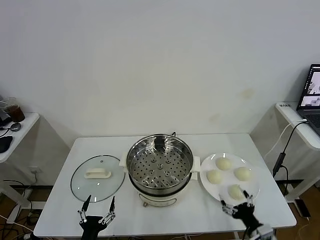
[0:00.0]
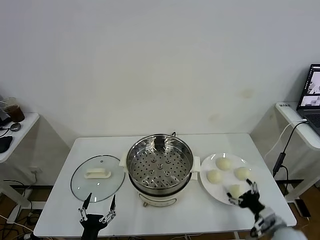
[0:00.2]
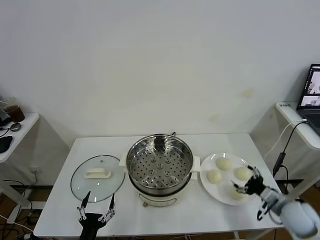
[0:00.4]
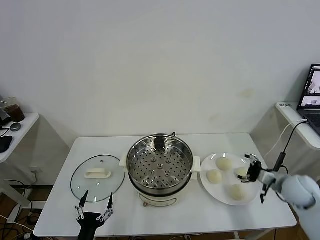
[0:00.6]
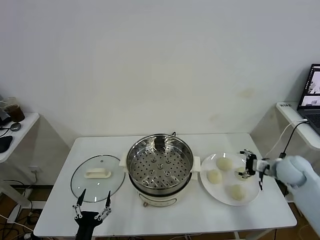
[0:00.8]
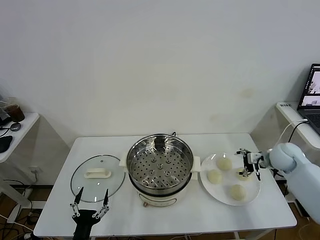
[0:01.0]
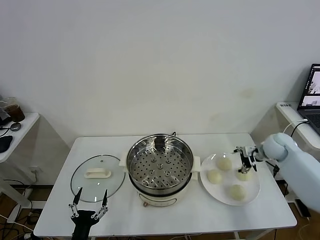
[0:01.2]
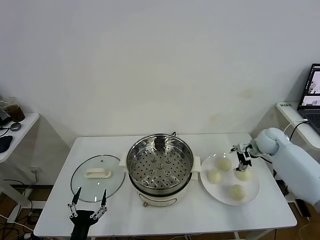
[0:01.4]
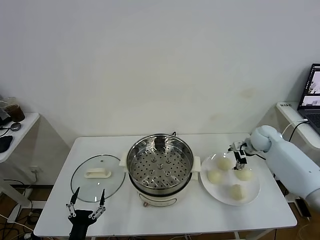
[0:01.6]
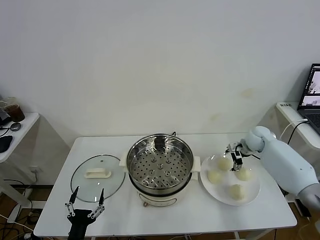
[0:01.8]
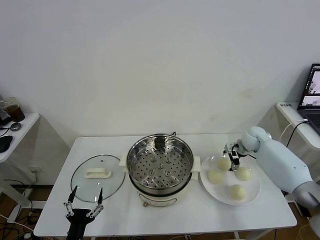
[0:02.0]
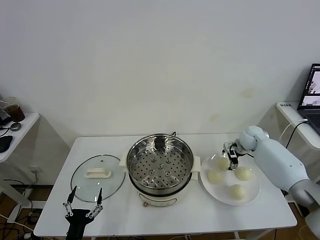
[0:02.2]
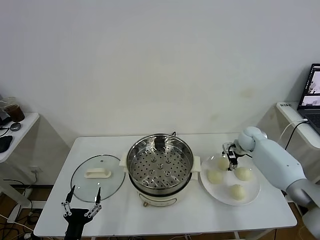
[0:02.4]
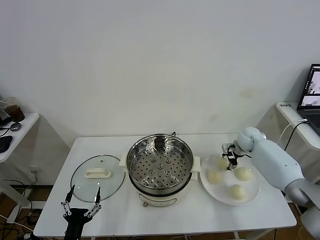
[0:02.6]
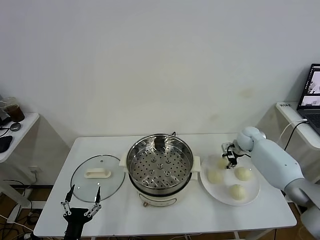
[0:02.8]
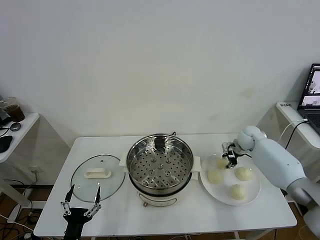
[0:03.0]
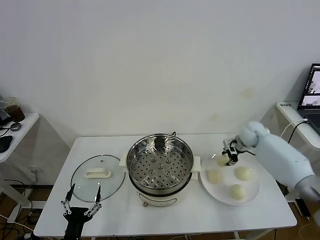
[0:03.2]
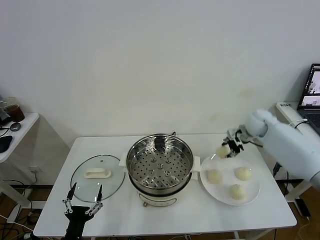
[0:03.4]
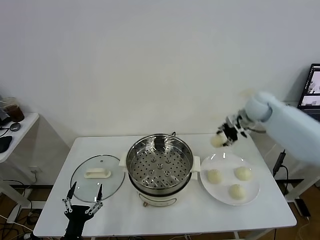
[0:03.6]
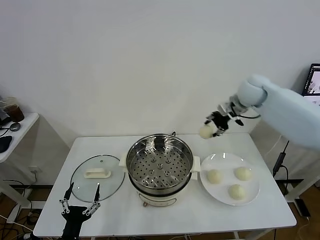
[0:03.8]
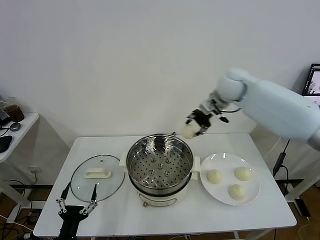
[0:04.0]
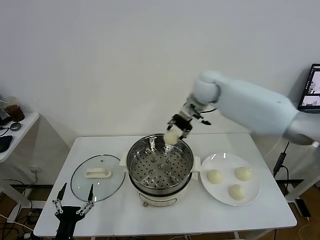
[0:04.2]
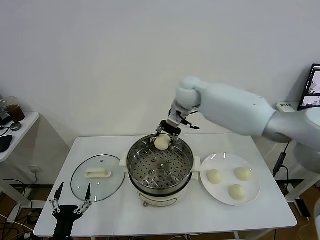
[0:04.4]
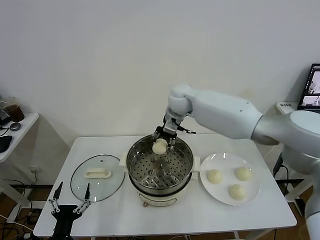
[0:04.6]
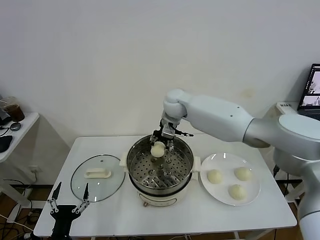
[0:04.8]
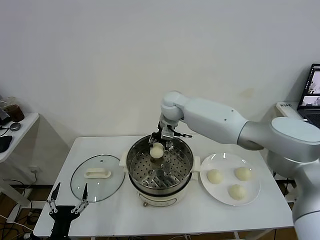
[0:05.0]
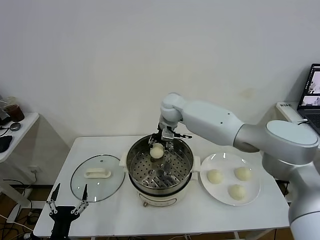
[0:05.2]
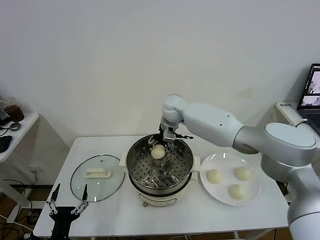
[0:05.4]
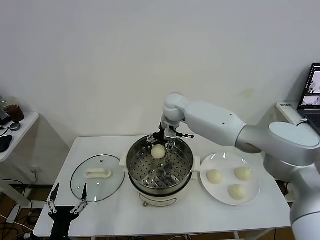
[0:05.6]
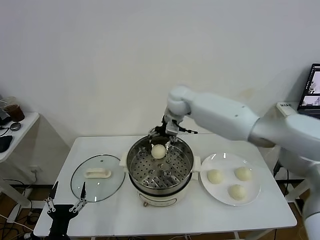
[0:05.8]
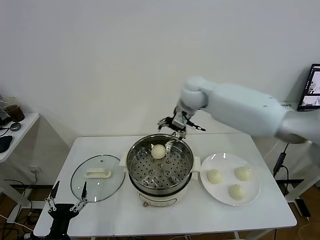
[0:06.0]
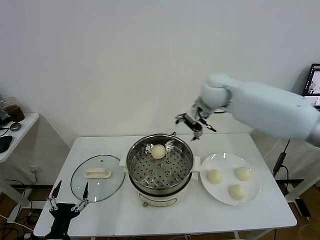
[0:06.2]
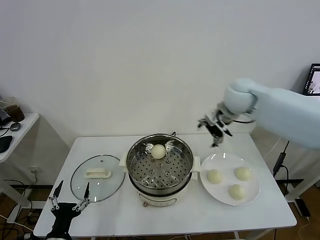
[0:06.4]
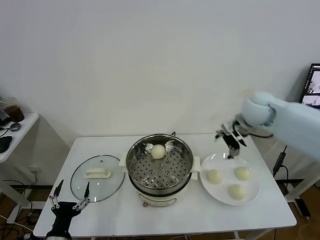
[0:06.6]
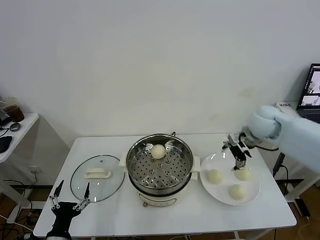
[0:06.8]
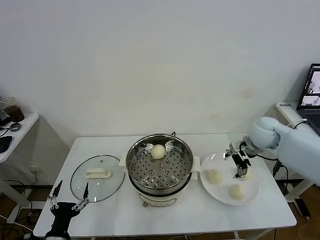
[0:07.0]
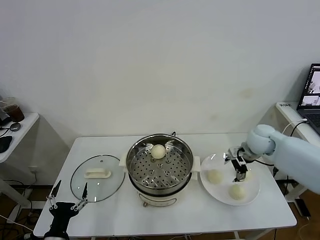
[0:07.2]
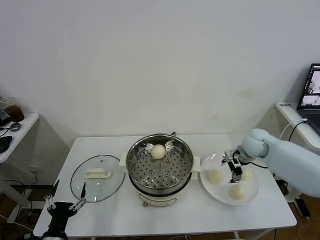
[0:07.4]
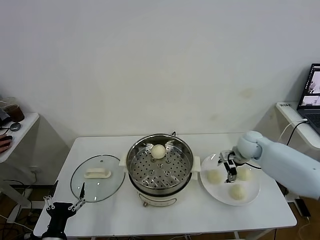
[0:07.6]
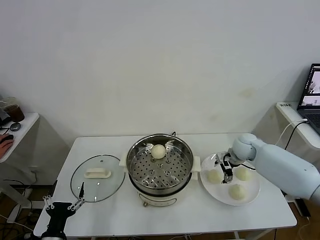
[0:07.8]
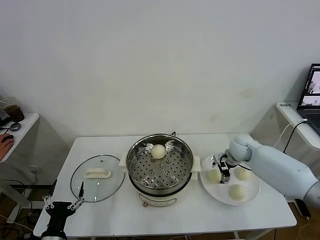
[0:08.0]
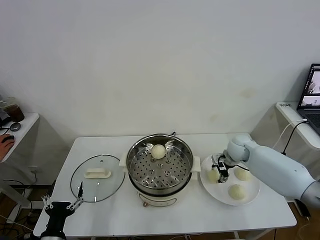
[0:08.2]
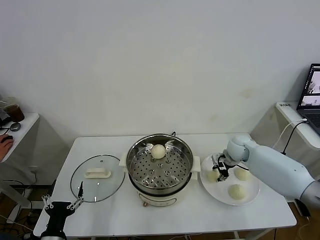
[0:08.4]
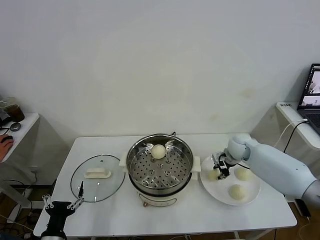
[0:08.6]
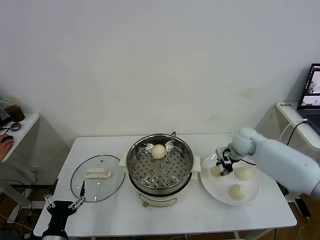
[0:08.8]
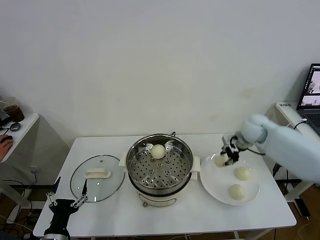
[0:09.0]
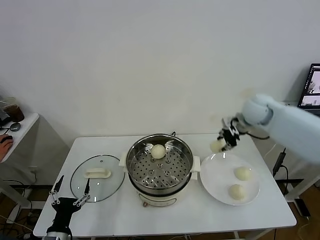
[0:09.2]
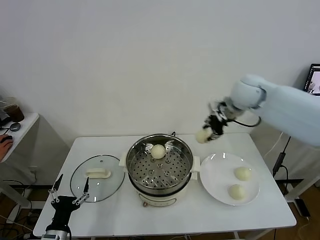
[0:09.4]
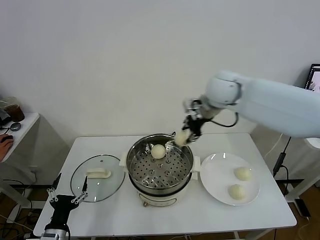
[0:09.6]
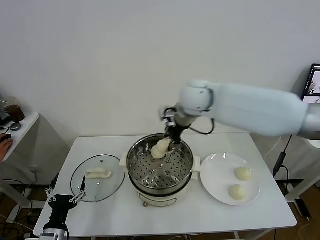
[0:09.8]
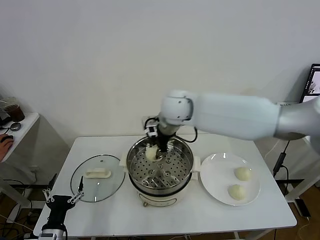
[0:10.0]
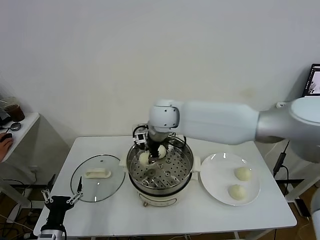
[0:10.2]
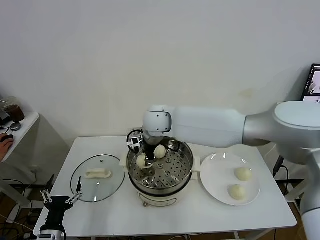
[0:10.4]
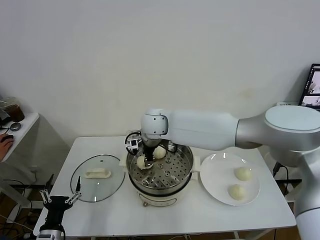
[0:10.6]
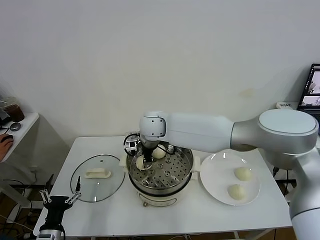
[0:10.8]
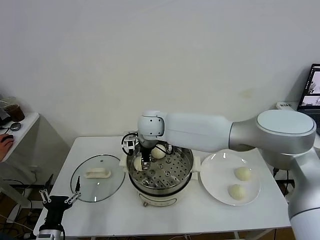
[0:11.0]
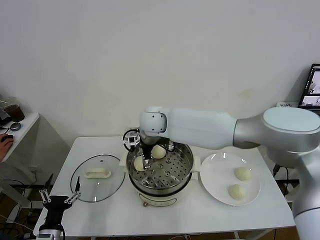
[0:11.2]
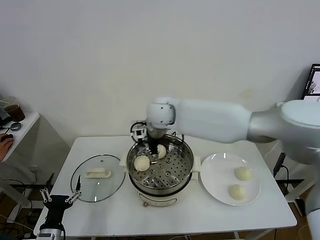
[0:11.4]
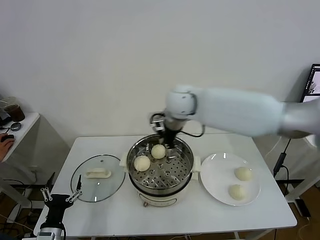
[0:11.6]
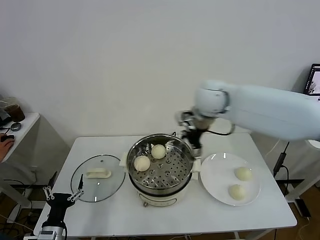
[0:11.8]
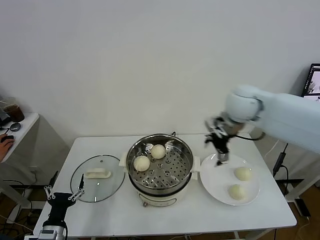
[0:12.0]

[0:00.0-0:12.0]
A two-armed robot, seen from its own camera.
Task of the whole recording: take steamed baozi put them in steamer.
Step, 0.0 to 2.8 s: Grasp the baozi in the plate with right gripper.
Step, 3.0 to 5.6 s: Place the baozi on the steamer with right gripper.
Step, 5.8 to 8.4 s: Grasp the baozi in the plate with right gripper.
Step, 8.6 to 11.2 s: Place the baozi on the steamer with right gripper.
1.6 to 3.0 s: The right gripper closes.
3.0 to 4.4 s: The right gripper shifts approximately 35 cm to the left and upward.
4.4 to 6.0 s: The right gripper shifts some 5 cm to the right, and opens its fingers.
6.0 to 7.6 s: The right gripper goes about 25 cm downward and to the right.
7.6 to 9.0 s: The right gripper moves upward, approximately 10 cm, and closes up.
9.0 to 10.4 s: The right gripper moves to the left, some 35 cm.
10.4 to 12.0 s: The right gripper heads to the right, covering roughly 30 cm, and opens its fingers.

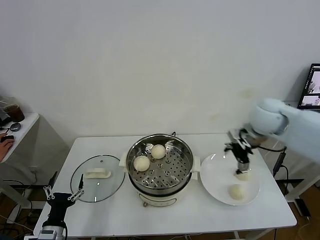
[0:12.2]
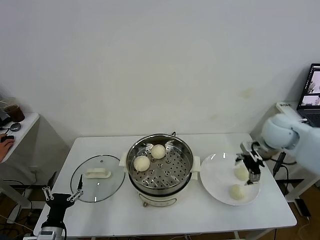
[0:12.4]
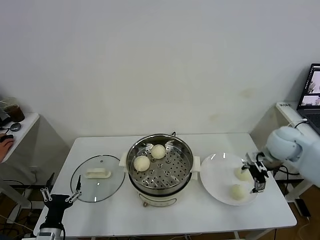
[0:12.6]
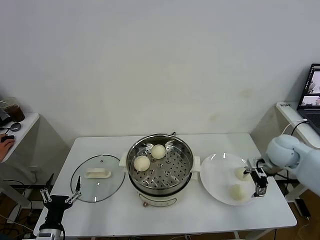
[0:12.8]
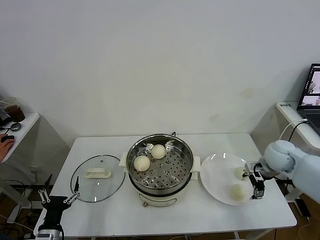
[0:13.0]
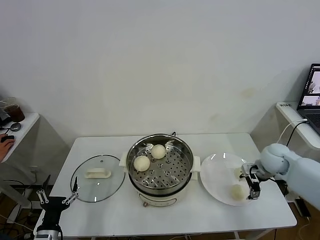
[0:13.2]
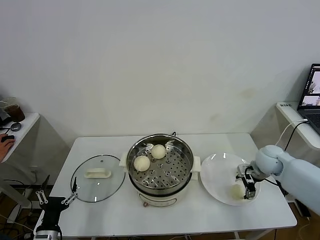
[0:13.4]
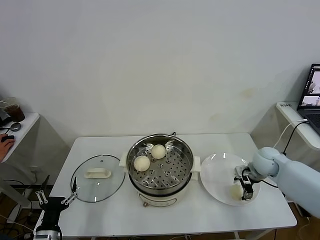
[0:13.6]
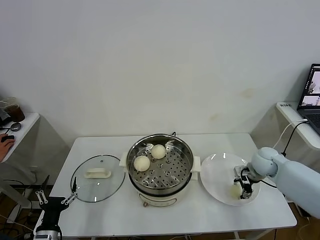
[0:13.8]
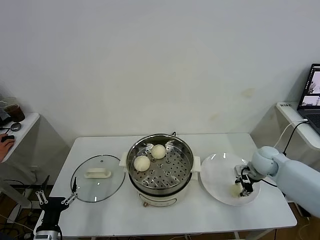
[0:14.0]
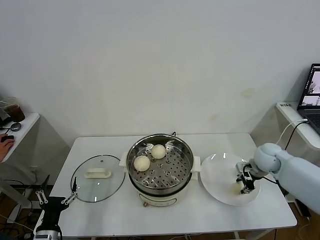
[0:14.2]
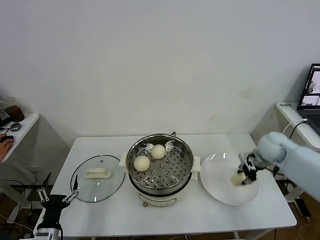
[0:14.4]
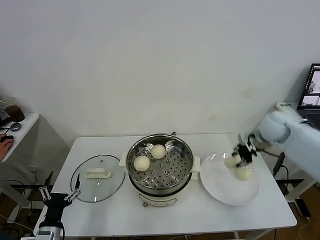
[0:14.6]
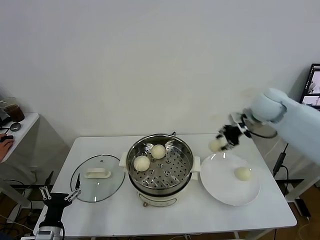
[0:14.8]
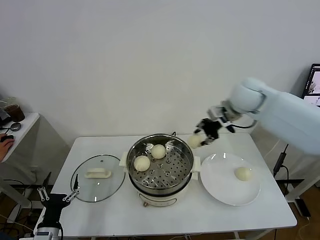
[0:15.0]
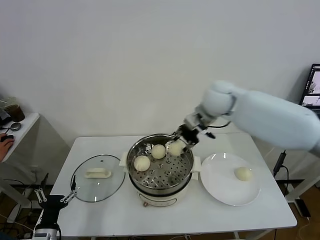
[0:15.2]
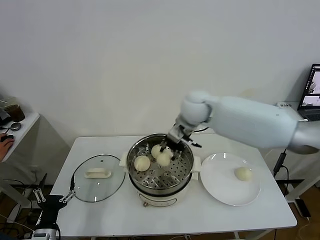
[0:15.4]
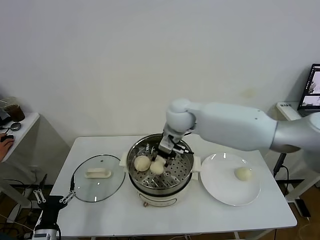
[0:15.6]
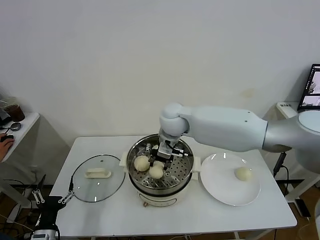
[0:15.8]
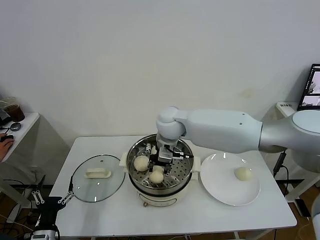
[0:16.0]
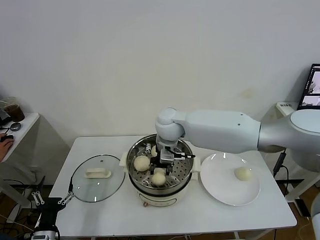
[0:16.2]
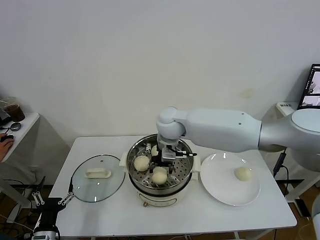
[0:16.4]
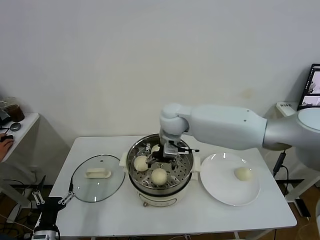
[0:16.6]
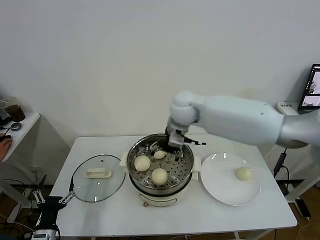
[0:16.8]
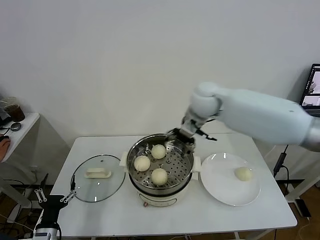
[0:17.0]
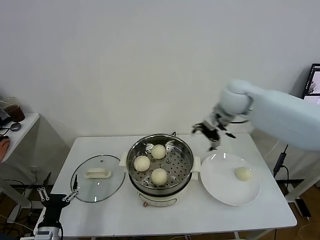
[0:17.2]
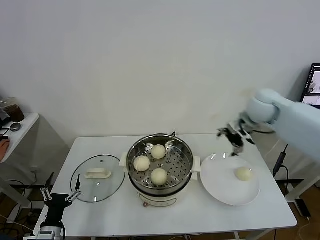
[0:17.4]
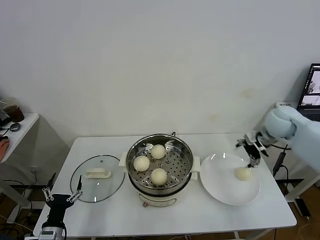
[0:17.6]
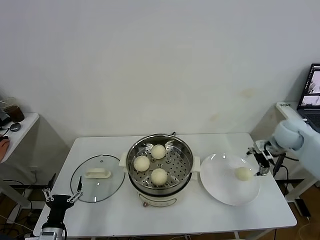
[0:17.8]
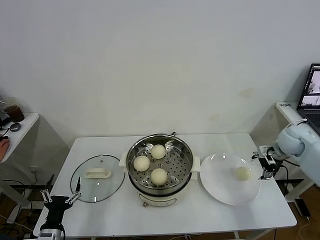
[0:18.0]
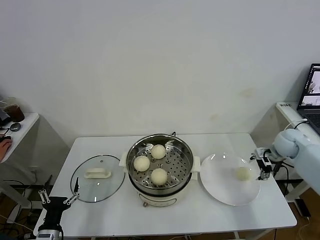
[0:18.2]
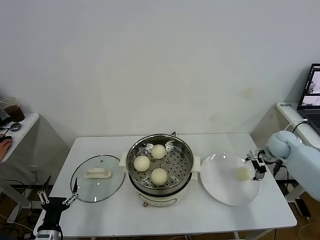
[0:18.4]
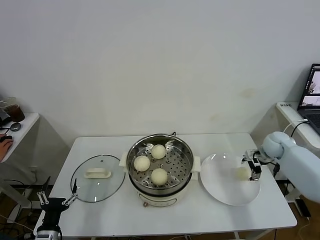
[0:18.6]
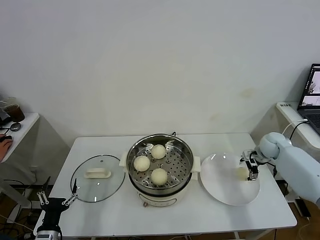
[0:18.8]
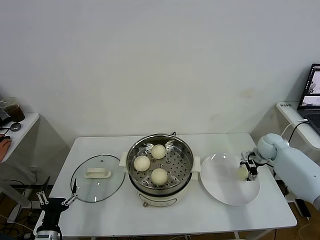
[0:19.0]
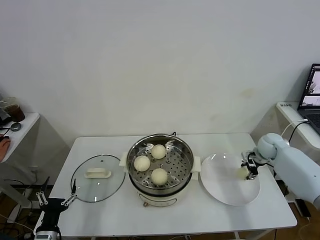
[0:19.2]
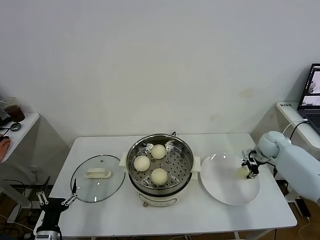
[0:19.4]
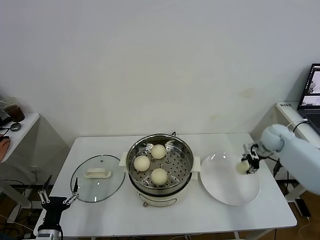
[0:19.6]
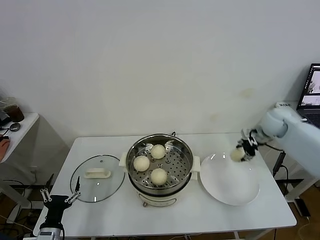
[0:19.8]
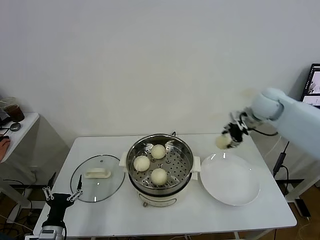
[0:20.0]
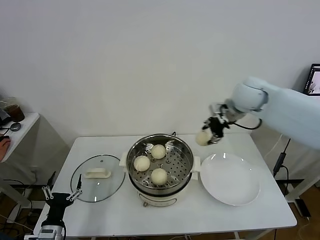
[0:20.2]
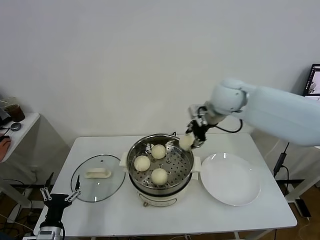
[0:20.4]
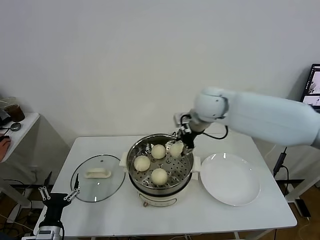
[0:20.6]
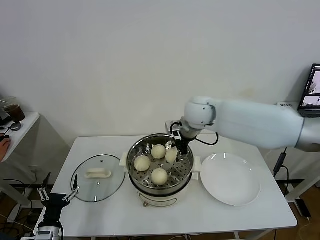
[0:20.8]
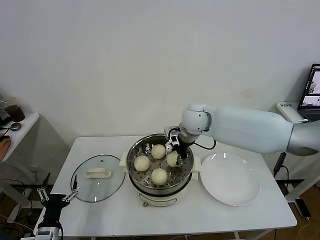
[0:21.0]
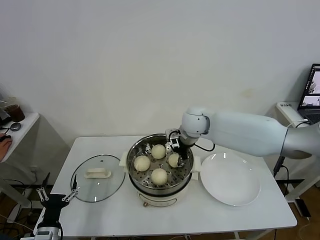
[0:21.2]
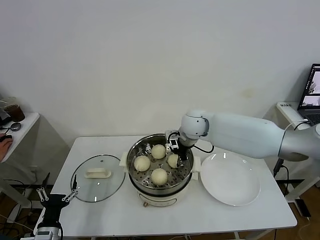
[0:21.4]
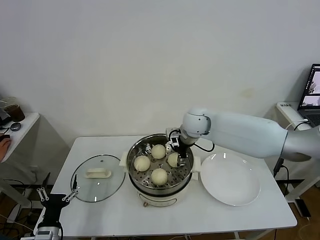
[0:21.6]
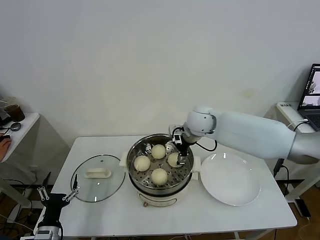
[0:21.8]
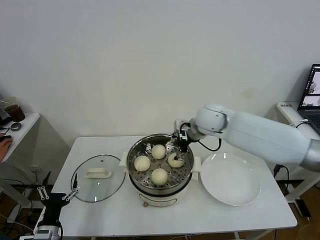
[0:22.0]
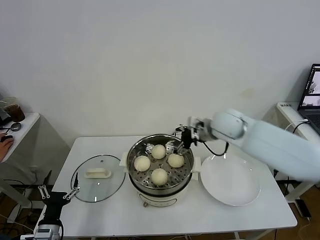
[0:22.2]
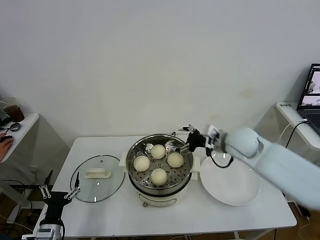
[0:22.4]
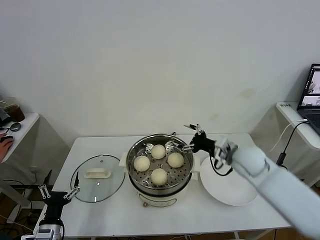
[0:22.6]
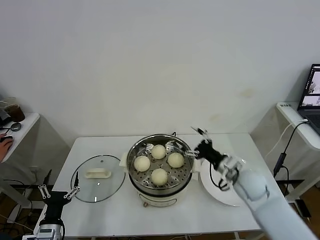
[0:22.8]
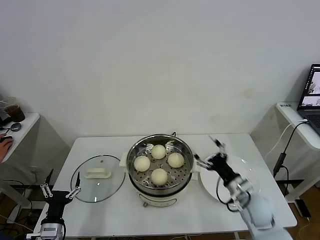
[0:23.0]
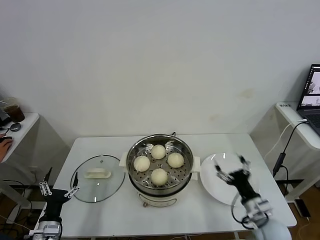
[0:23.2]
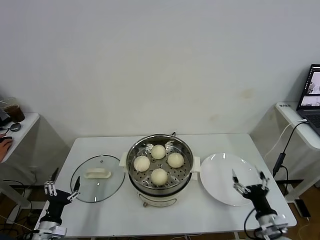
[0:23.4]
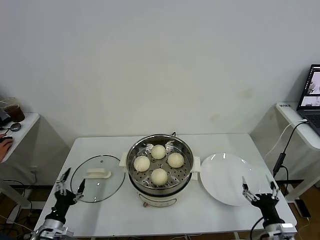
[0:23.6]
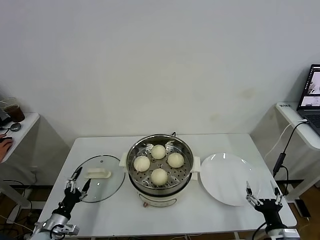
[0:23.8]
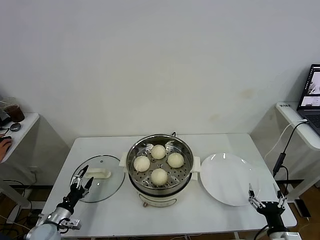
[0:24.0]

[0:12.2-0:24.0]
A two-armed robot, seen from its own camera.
Task of the whole recording: take steamed baozi put them in steamer.
Step, 12.2 to 14.0 s: Grasp the baozi in the plate with right gripper.
Step, 14.2 to 16.6 s: Place the baozi on the steamer with right gripper.
Step, 16.8 to 19.2 s: Grasp the baozi in the plate with right gripper.
Step, 19.4 to 21.6 s: Place the baozi on the steamer with right gripper.
12.2 to 13.6 s: The right gripper heads downward, covering approximately 20 cm.
13.6 to 15.2 s: The right gripper heads to the left and upward, covering approximately 30 cm, and closes its fingers.
15.2 to 16.6 s: The right gripper shifts roughly 10 cm to the left, and opens up.
16.6 to 18.2 s: The right gripper goes some 40 cm to the right.
18.2 to 19.6 s: The right gripper closes.
19.6 to 21.0 s: The right gripper moves to the left, some 30 cm.
21.0 to 22.6 s: The right gripper heads to the right, backward and downward, covering roughly 20 cm, and opens.
22.6 to 24.0 s: The right gripper goes some 30 cm backward and downward. Meanwhile the left gripper goes about 10 cm forward and downward.
